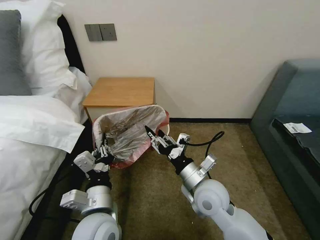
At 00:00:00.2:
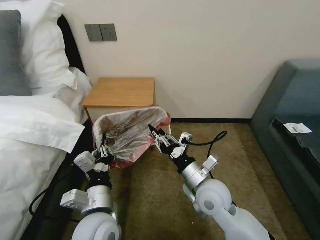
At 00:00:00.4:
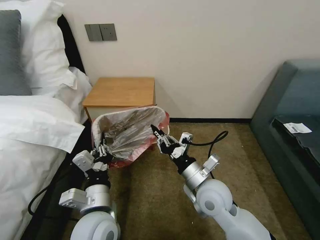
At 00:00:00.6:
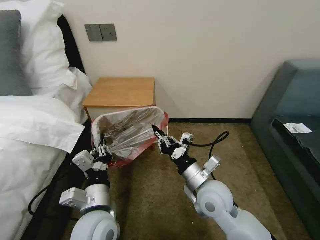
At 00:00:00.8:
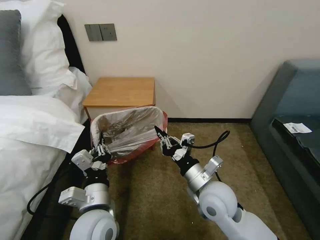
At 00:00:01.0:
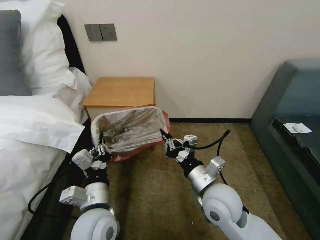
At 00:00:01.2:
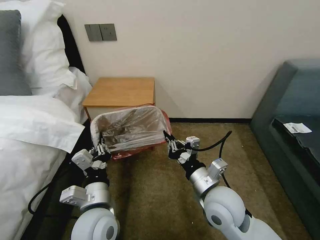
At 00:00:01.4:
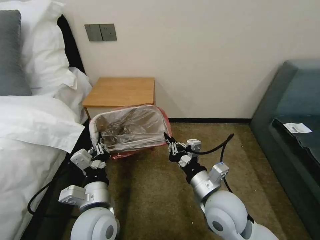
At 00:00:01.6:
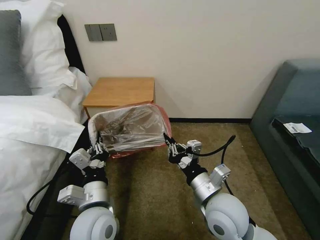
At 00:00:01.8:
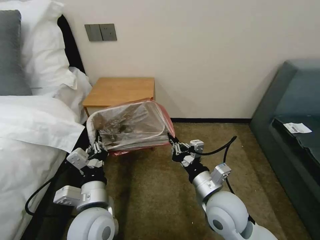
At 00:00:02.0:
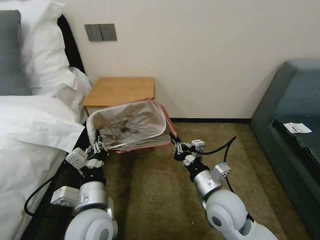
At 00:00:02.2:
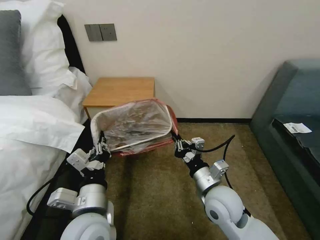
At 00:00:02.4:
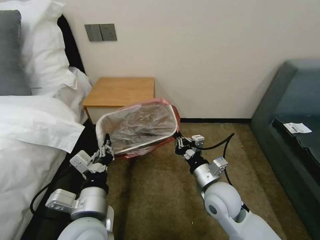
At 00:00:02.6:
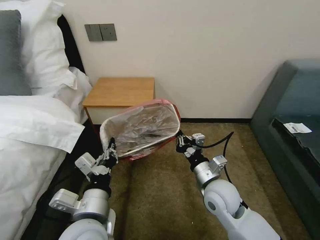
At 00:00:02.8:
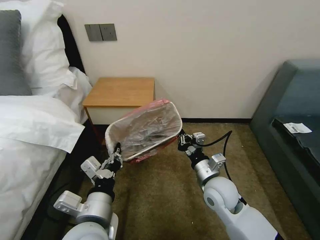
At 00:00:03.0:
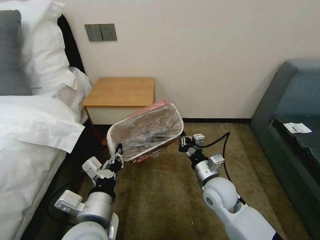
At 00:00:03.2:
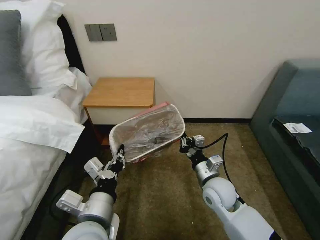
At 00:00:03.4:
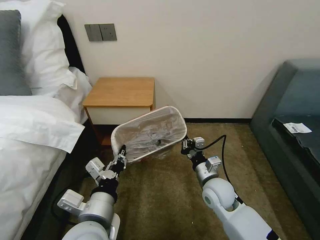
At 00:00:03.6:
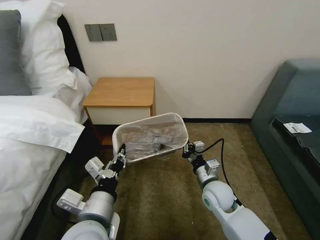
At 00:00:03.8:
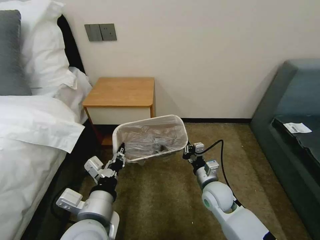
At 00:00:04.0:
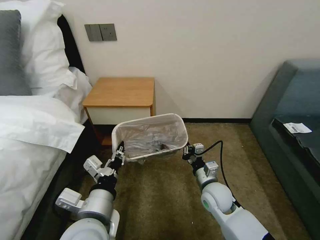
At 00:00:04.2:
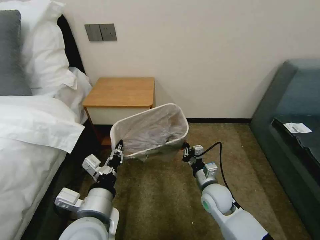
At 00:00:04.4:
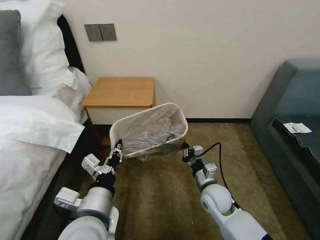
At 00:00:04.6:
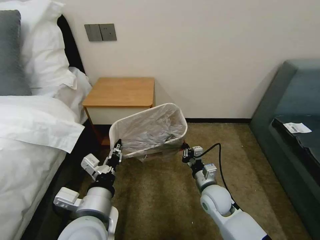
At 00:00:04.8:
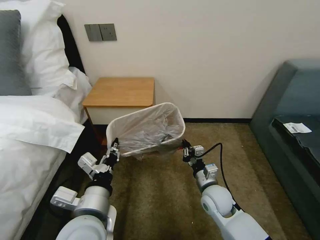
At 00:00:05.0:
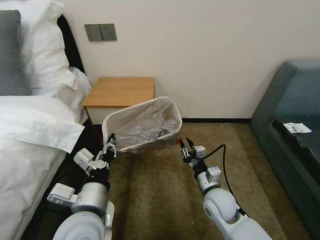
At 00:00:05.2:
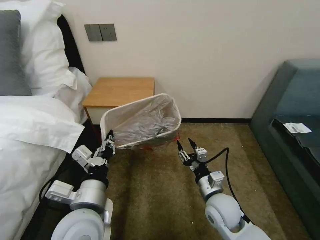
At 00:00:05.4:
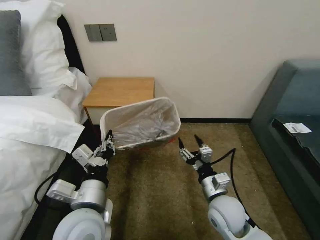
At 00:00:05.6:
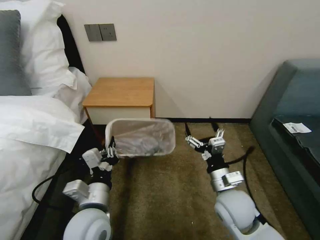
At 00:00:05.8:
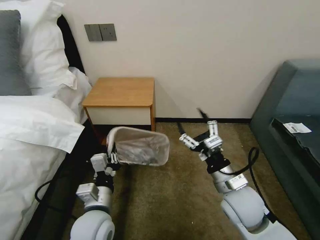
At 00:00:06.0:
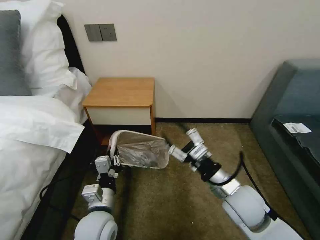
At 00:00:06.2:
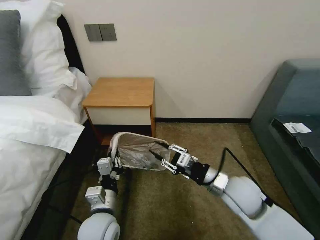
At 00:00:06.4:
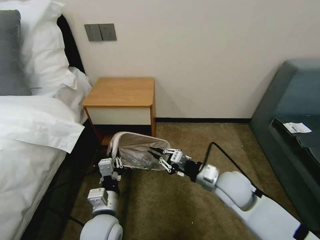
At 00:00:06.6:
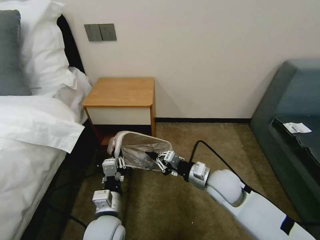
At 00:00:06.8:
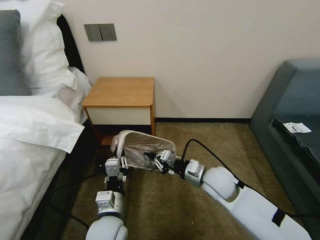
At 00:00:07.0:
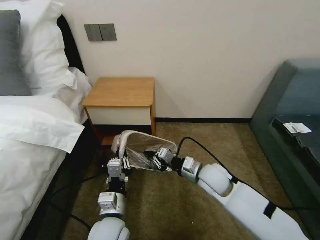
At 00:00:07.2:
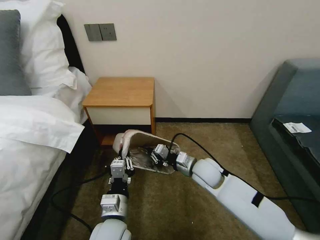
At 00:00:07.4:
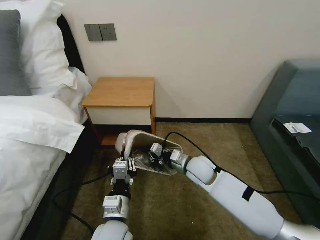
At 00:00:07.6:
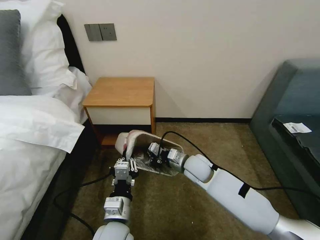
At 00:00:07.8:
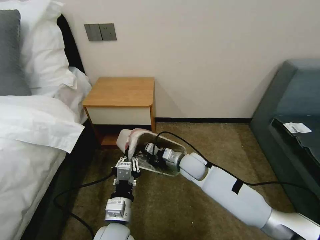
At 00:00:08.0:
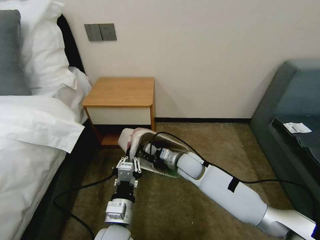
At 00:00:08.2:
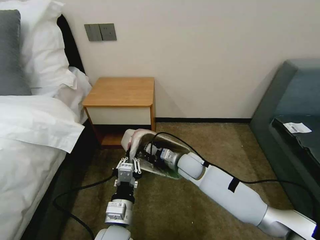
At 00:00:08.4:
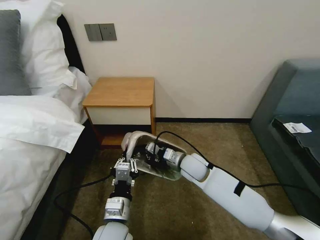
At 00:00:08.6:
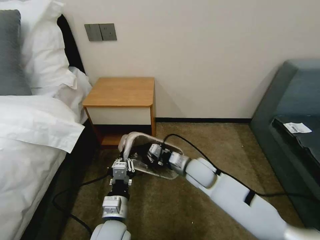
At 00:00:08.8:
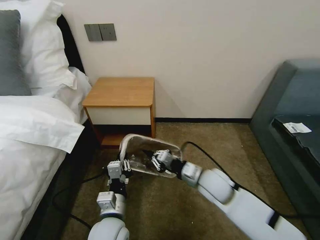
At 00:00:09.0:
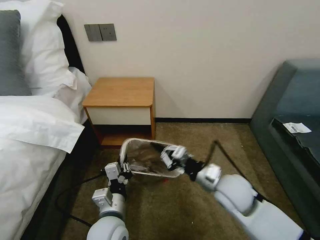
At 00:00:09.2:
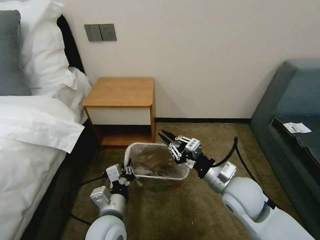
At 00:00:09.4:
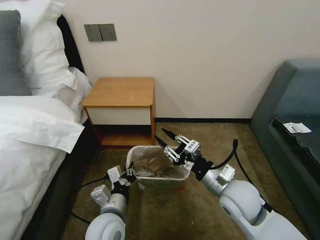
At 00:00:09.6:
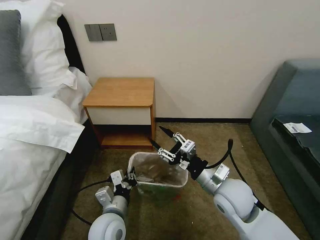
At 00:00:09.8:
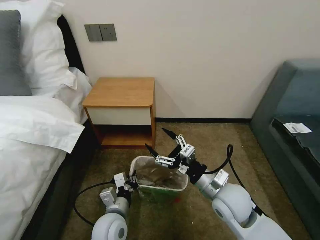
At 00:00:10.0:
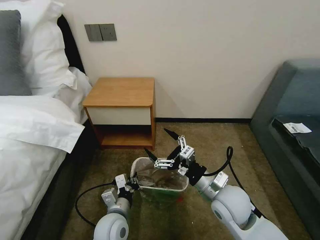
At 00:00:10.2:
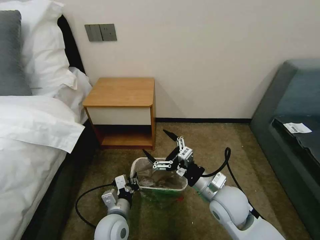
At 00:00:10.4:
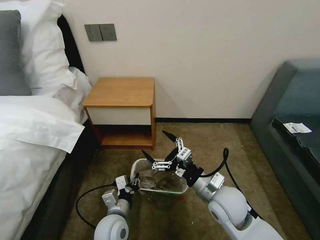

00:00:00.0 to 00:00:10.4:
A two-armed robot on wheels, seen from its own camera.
Task of the whole recording: Pick up the garbage bag from the table and place it over the trash can.
00:00:00.0 to 00:00:01.4: The right gripper changes place by about 5 cm, and closes up.
00:00:01.4 to 00:00:03.0: The left gripper ends up roughly 5 cm from where it was. The right gripper is displaced forward and downward by approximately 10 cm.
00:00:03.0 to 00:00:04.4: The right gripper shifts some 5 cm downward.
00:00:04.4 to 00:00:06.0: The left gripper shifts about 10 cm downward, while the right gripper shifts about 10 cm upward, and opens its fingers.
00:00:06.0 to 00:00:07.4: The right gripper shifts approximately 15 cm forward, to the left and downward, and closes its fingers.
00:00:07.4 to 00:00:09.0: The right gripper is displaced backward, upward and to the right by approximately 15 cm.
00:00:09.0 to 00:00:10.4: The right gripper opens its fingers, while the left gripper travels downward by about 10 cm.

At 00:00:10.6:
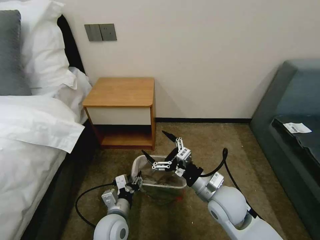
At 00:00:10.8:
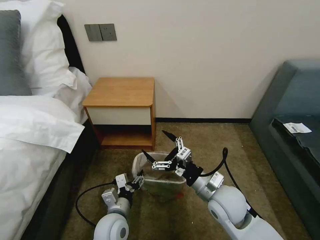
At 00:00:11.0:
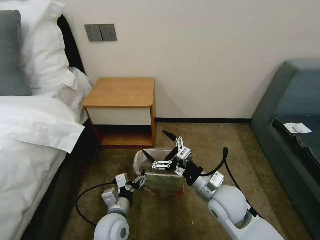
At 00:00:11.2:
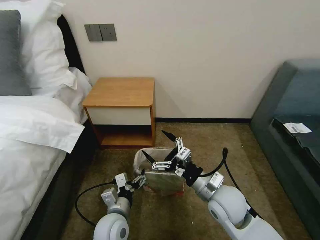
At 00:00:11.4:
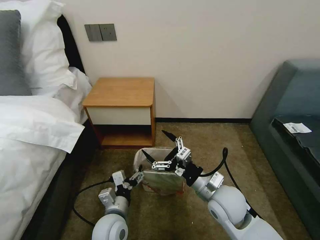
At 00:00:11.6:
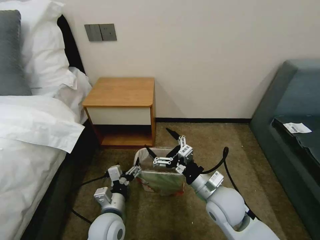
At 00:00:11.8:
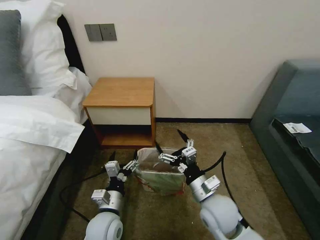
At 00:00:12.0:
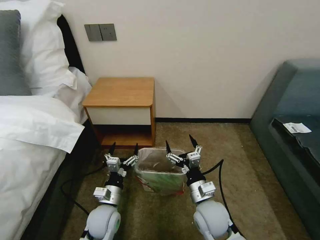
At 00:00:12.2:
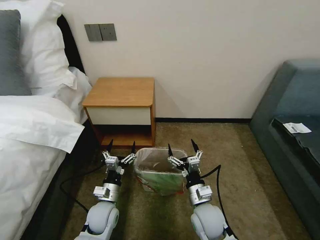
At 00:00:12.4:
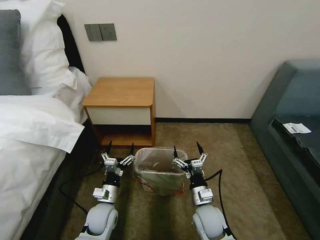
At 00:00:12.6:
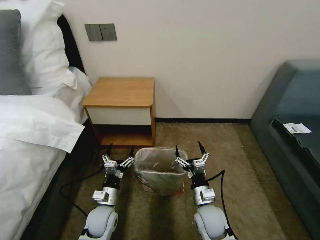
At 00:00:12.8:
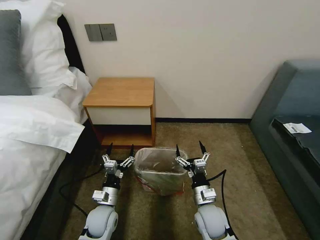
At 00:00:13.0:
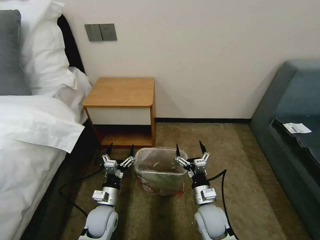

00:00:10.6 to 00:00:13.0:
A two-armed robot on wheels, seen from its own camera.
Task of the whole recording: Pick up the garbage bag from the table and place it over the trash can.
00:00:10.6 to 00:00:11.8: The left gripper opens its fingers.
00:00:11.8 to 00:00:13.0: The left gripper travels downward by some 5 cm, while the right gripper travels downward by about 10 cm.
